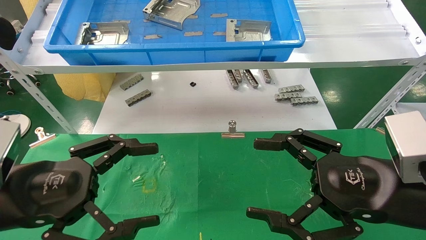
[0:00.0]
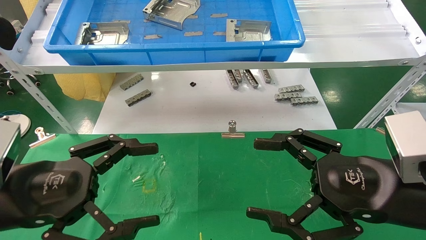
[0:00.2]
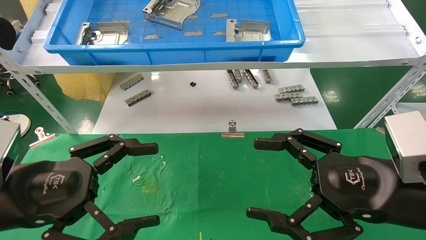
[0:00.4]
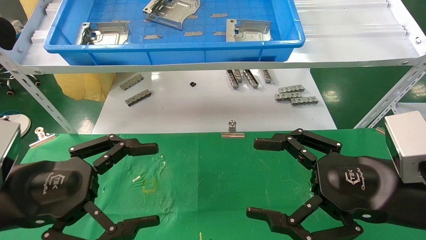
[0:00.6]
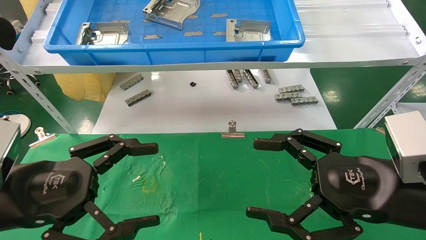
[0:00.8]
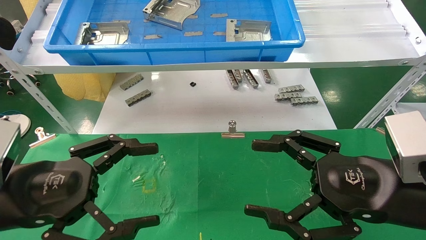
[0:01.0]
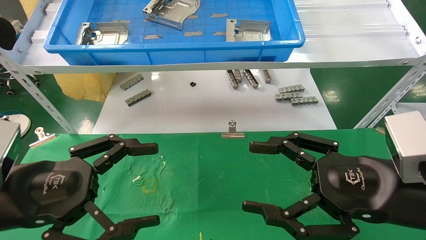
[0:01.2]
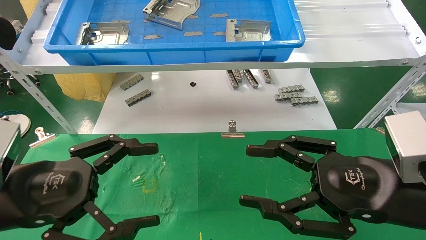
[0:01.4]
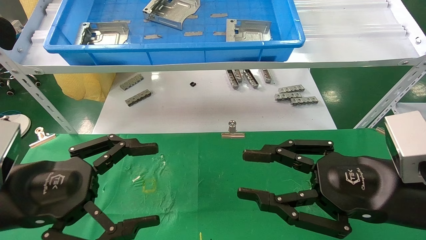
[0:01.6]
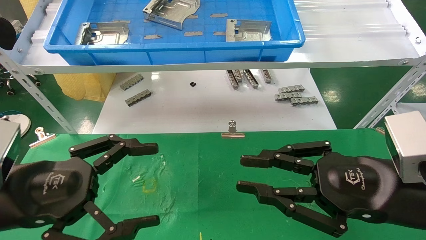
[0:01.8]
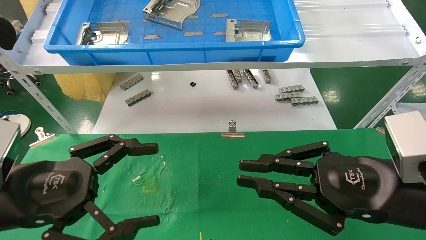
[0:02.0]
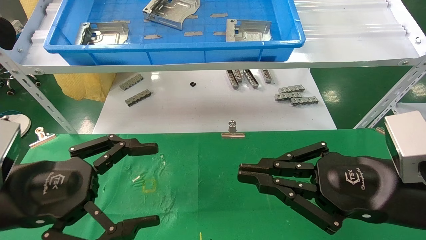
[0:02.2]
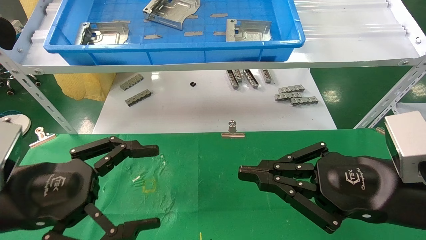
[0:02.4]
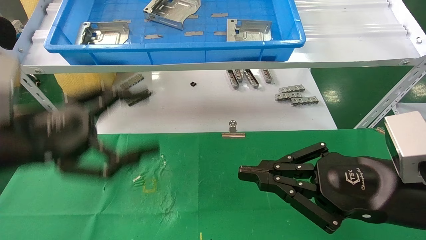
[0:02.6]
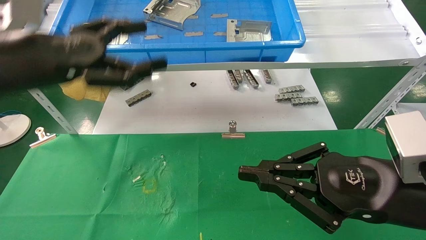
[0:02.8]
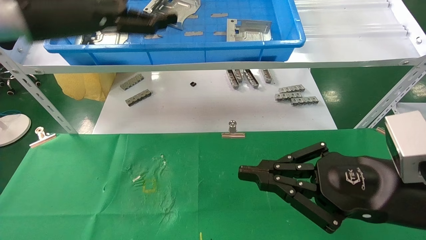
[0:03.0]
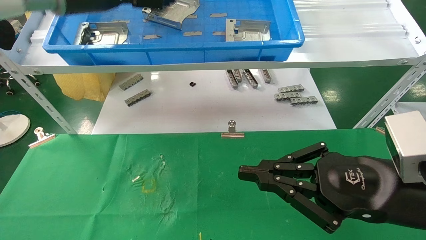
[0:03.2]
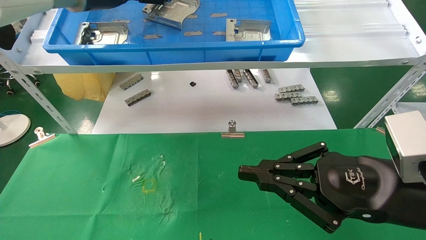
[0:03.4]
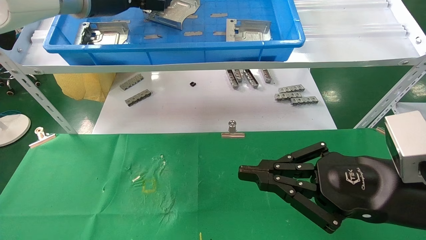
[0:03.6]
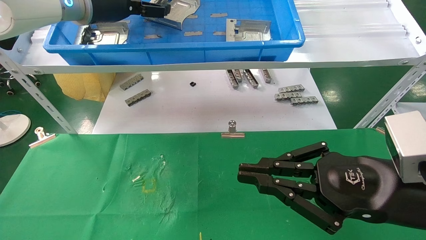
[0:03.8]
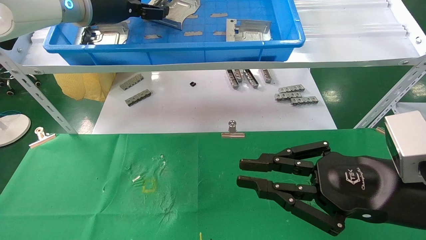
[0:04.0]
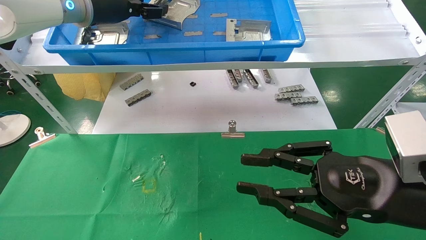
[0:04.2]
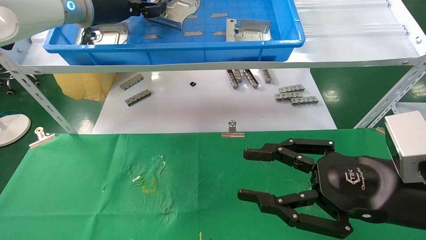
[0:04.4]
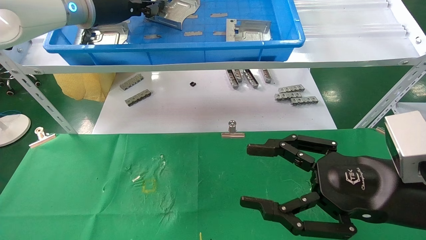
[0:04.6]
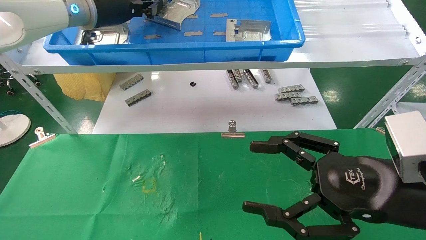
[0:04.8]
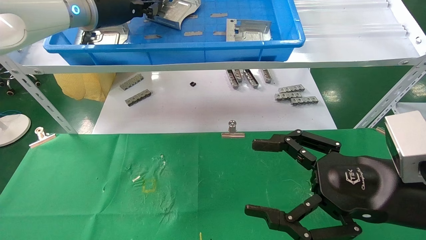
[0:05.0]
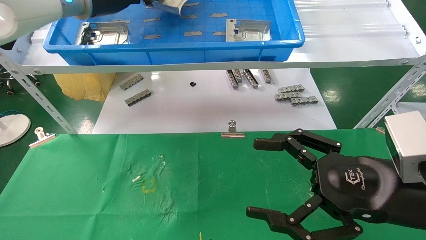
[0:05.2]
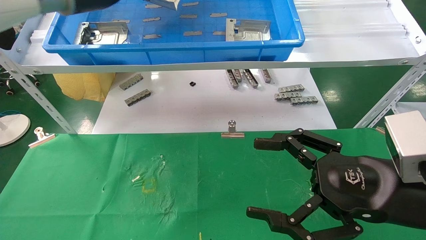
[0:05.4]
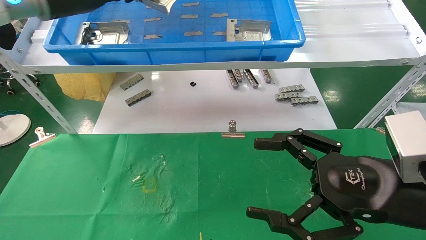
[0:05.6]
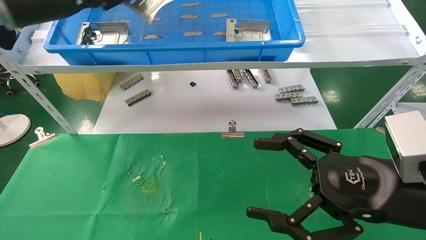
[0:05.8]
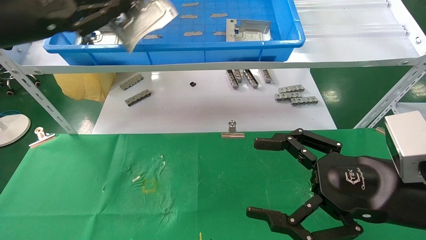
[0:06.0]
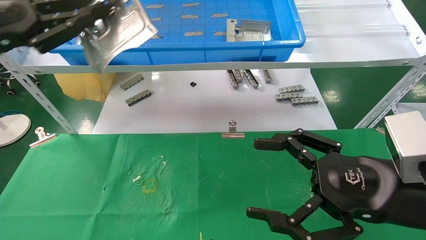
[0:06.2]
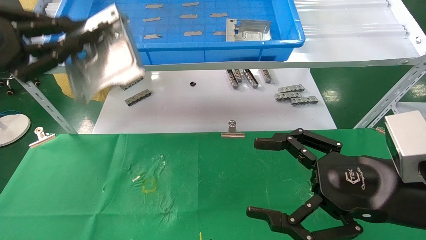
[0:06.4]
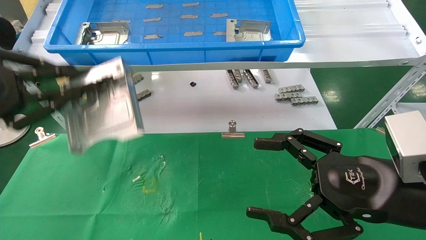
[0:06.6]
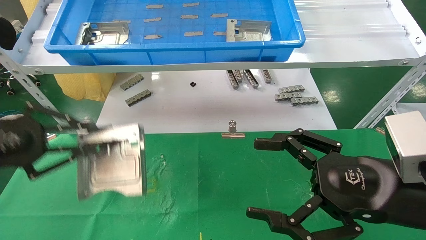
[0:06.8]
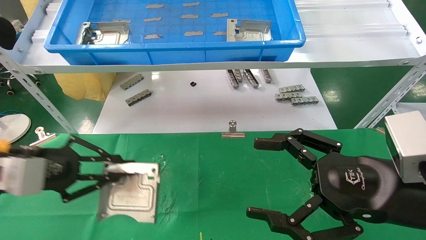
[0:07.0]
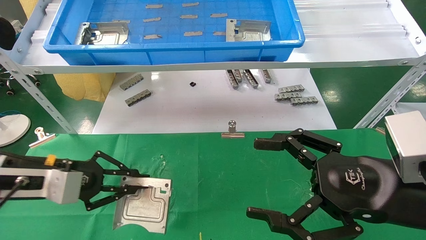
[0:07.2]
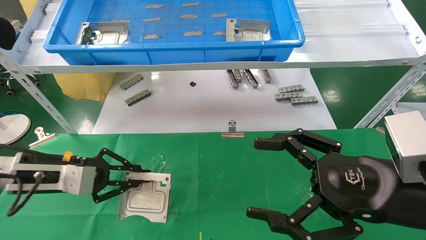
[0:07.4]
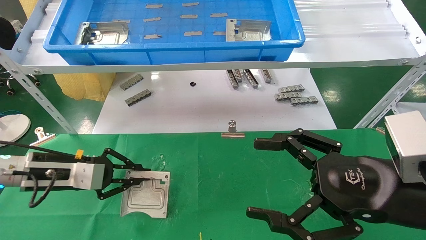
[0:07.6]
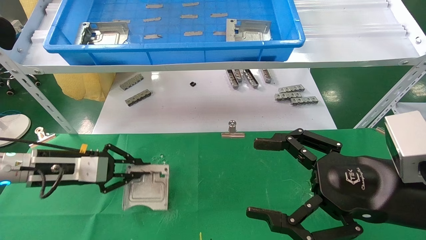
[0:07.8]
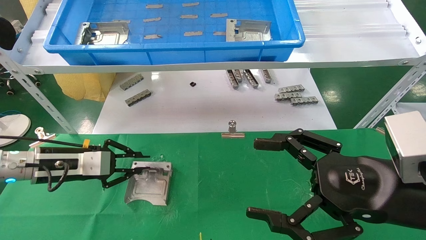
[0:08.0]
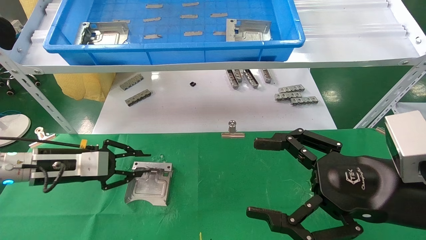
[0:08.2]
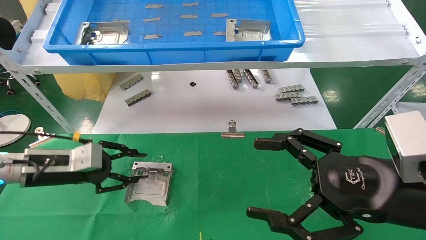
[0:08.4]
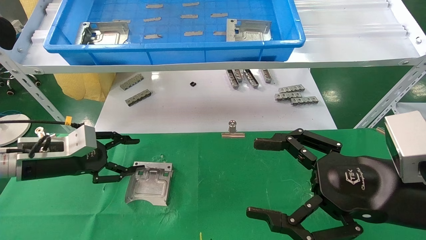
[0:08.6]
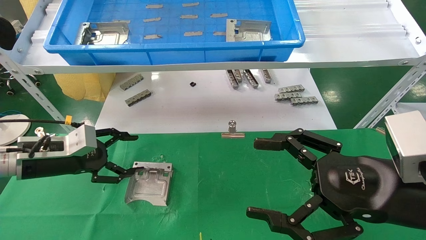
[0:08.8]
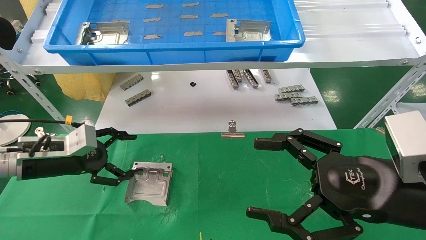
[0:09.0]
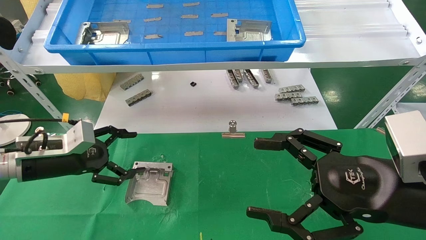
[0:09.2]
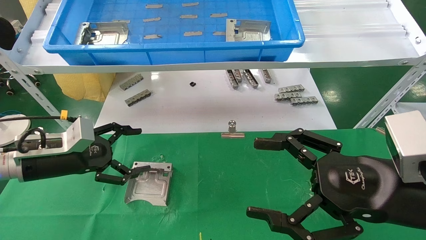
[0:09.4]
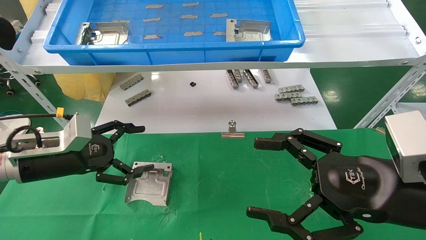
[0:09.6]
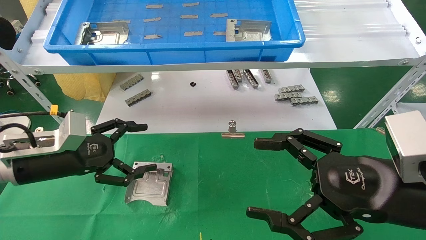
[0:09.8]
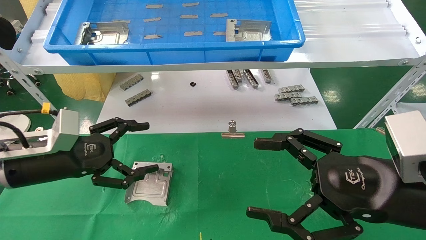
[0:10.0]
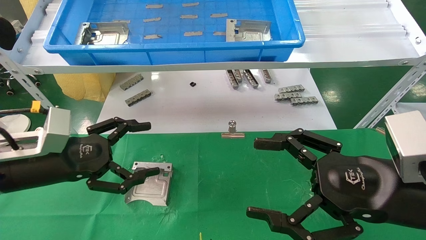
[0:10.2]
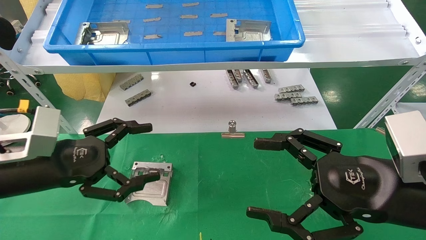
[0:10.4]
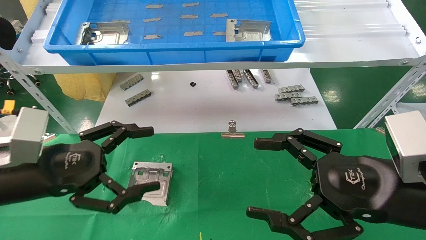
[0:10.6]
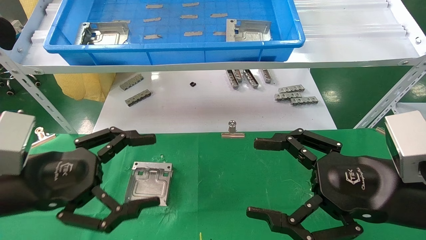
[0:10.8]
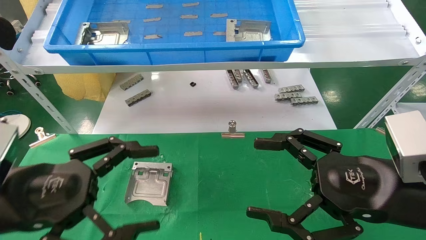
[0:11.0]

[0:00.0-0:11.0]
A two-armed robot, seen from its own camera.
Task of the whole recording: use the mechanical arm to pick up the parts and place them on the table.
Step, 0:02.4 to 0:04.8: Pick up the hard drive bracket from the feeding area.
Step, 0:05.0 to 0:08.4: Place the hard drive bracket into the box.
0:00.0 to 0:01.6: The right gripper closes its fingers.
0:01.6 to 0:03.2: The right gripper closes its fingers. The left gripper moves upward and forward, some 30 cm.
0:03.2 to 0:04.8: The left gripper closes up. Meanwhile the right gripper opens its fingers.
0:04.8 to 0:06.2: The left gripper heads backward, to the left and downward, covering some 20 cm.
0:06.2 to 0:07.8: The left gripper heads downward, covering roughly 20 cm.
0:07.8 to 0:09.4: The left gripper opens up.
0:09.4 to 0:11.0: The left gripper heads backward, covering roughly 15 cm.

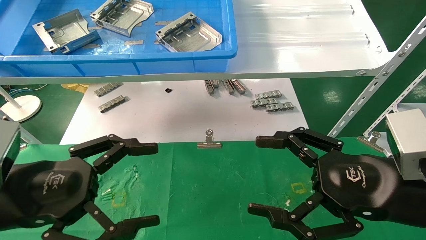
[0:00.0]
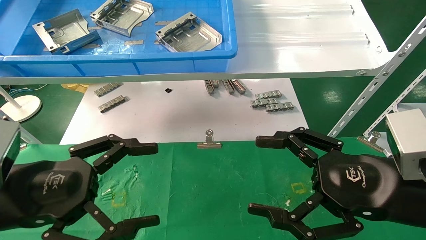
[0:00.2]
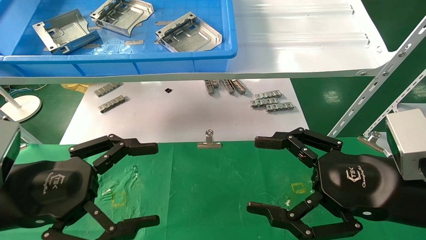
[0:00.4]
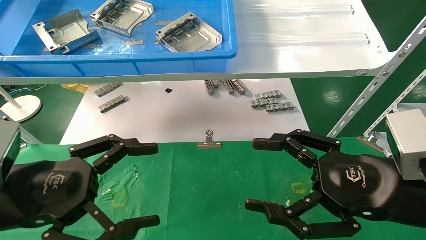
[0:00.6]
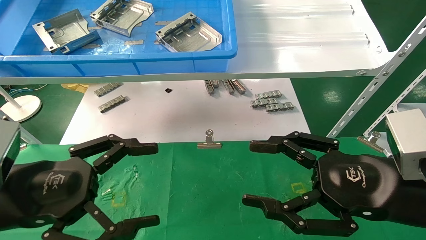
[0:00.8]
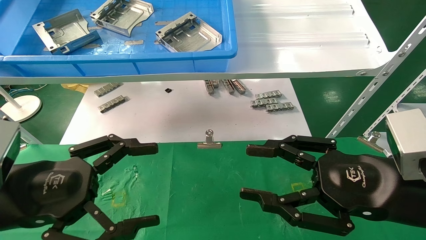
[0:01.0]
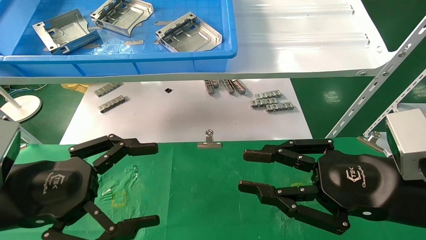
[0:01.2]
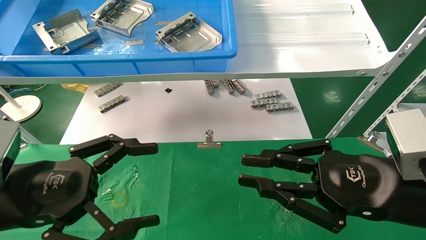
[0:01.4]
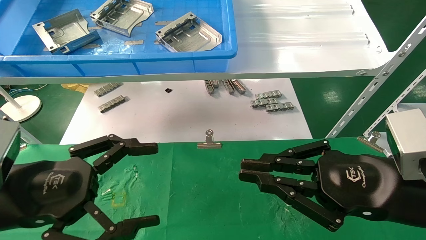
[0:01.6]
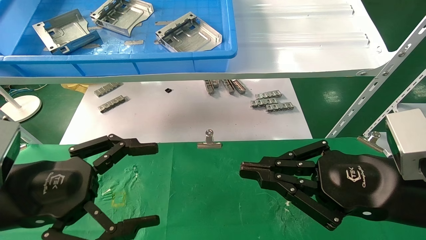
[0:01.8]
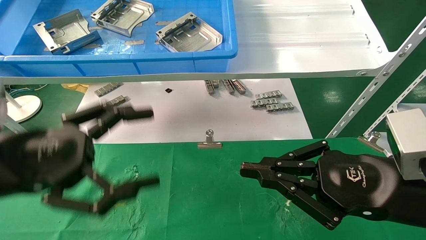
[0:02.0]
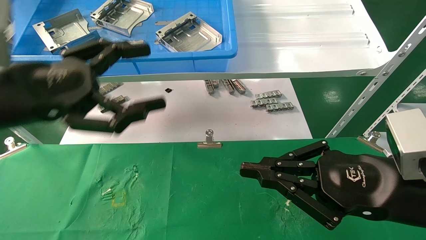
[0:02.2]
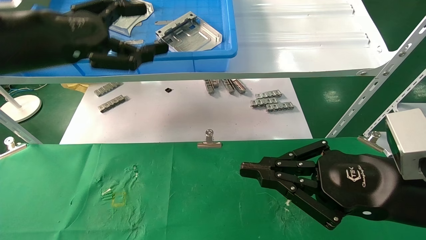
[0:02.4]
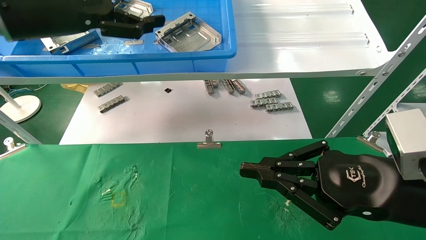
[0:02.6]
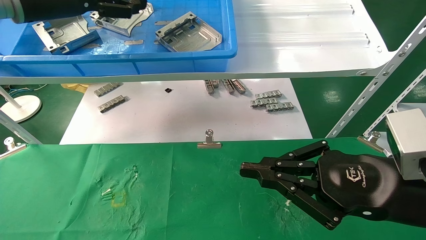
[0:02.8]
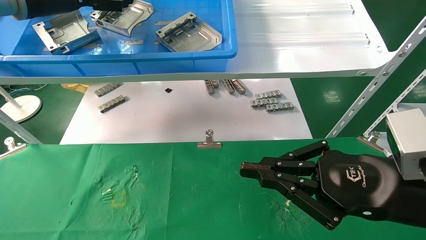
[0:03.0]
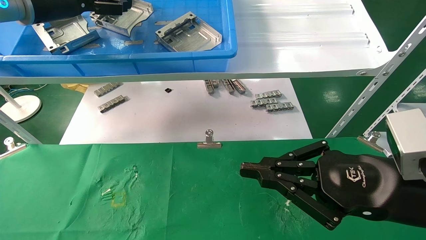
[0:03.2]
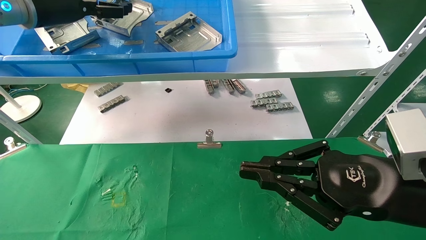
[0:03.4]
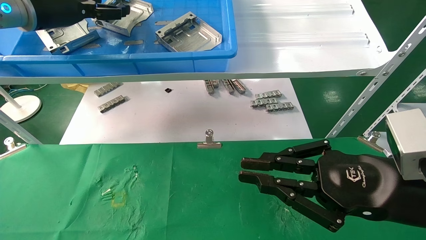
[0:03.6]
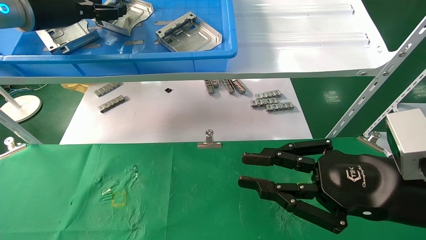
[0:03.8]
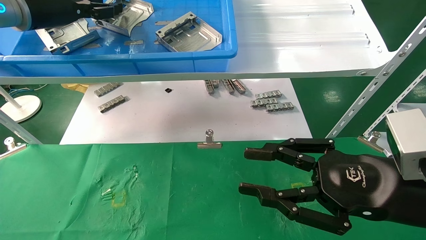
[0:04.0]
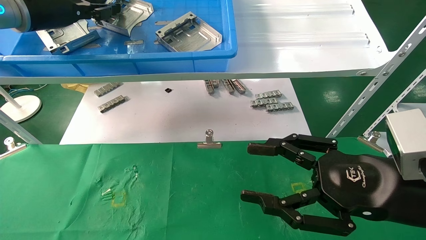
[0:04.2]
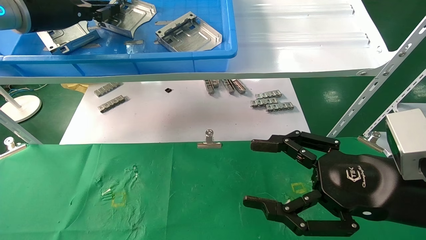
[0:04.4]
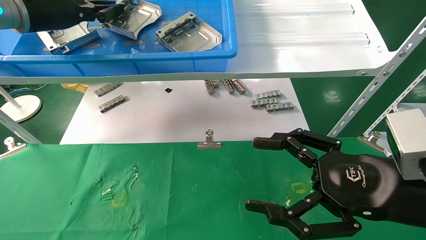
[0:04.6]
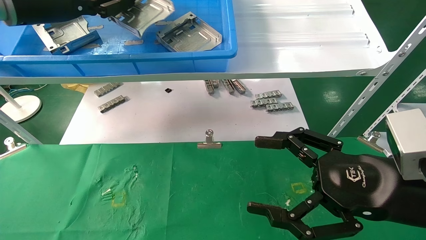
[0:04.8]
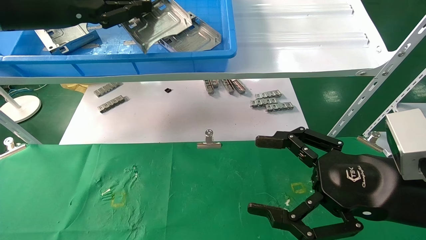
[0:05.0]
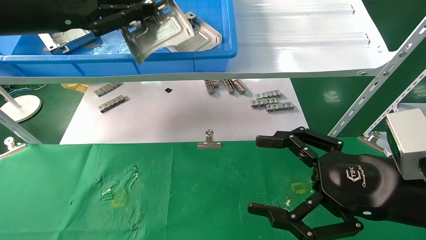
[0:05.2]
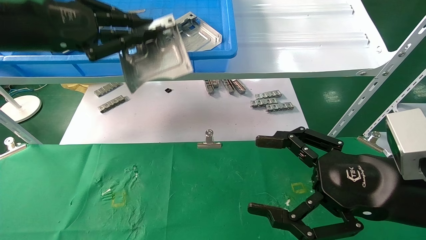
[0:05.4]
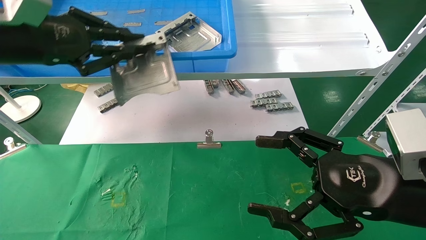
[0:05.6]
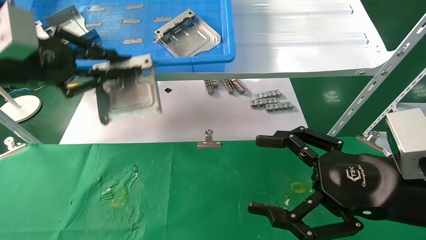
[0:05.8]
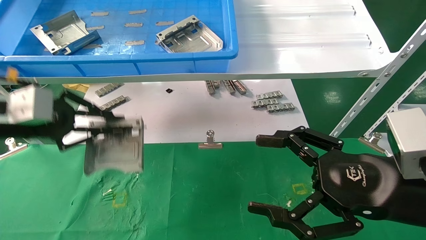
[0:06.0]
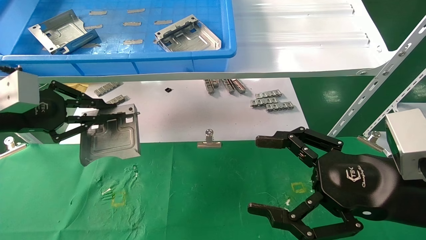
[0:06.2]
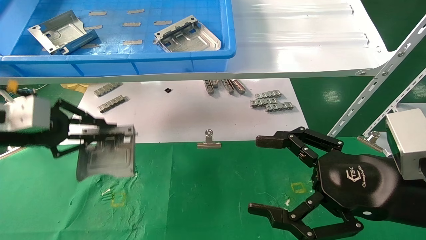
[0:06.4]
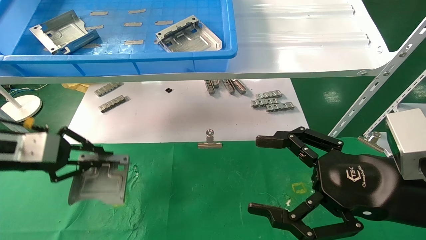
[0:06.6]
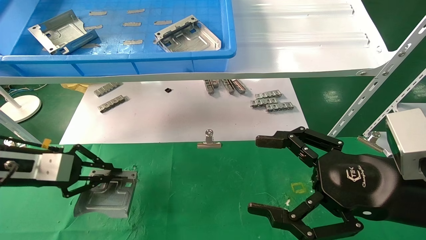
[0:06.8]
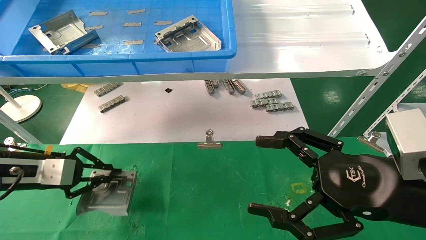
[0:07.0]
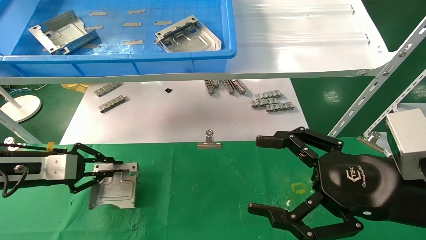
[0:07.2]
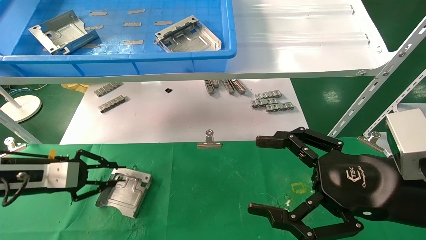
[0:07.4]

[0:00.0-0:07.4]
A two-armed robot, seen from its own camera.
Task of the whole recording: use the mechanical arm to pick up the parts and place them on the table.
Step, 0:02.2 to 0:04.4: Pick up the hard drive bracket from the feeding area.
0:00.0 to 0:01.4: The right gripper closes up.
0:01.4 to 0:03.0: The left gripper moves upward and forward, approximately 30 cm.
0:03.0 to 0:04.4: The right gripper opens up; the left gripper closes up.
0:04.4 to 0:06.0: The left gripper travels downward and backward by roughly 15 cm.
0:06.0 to 0:07.4: The left gripper is displaced downward by about 15 cm.
